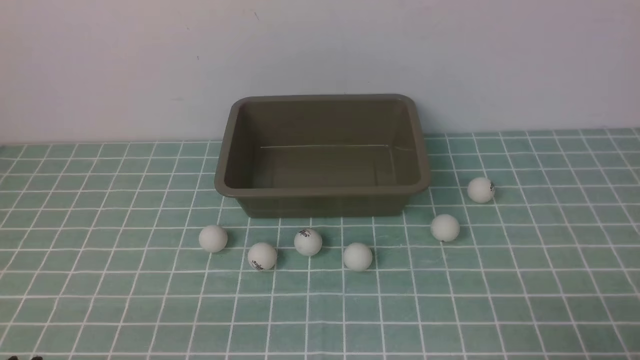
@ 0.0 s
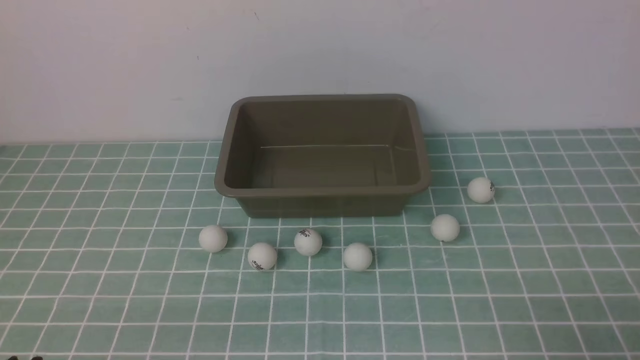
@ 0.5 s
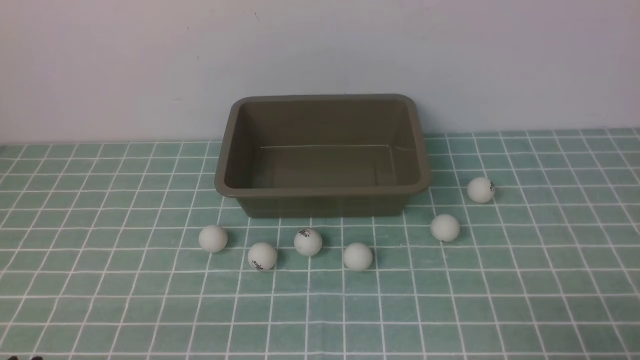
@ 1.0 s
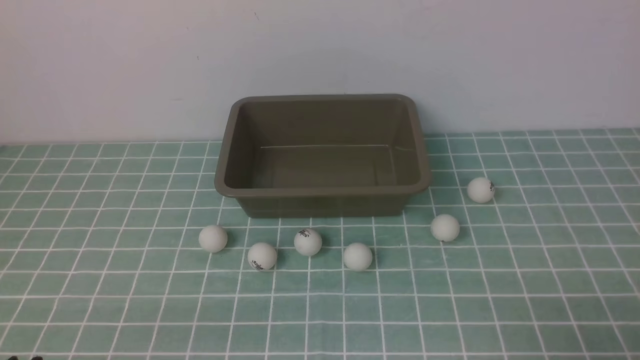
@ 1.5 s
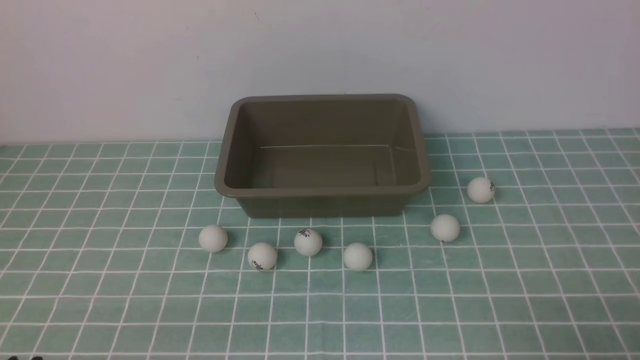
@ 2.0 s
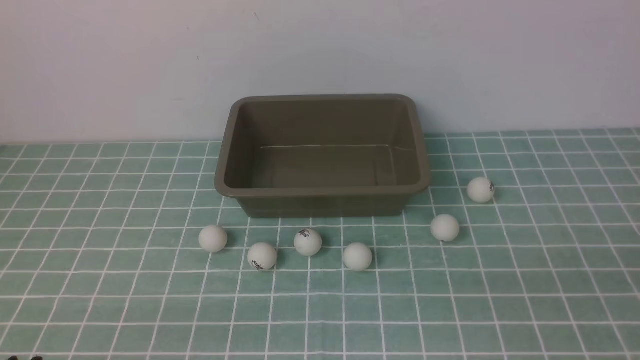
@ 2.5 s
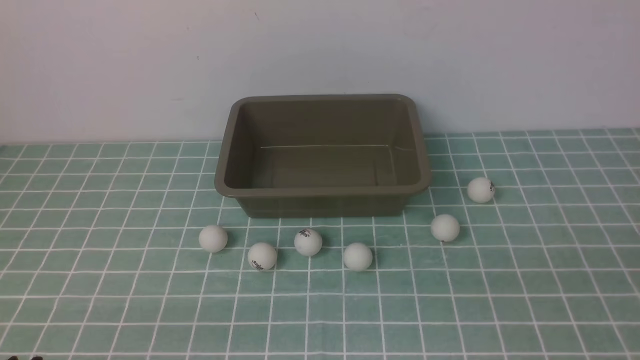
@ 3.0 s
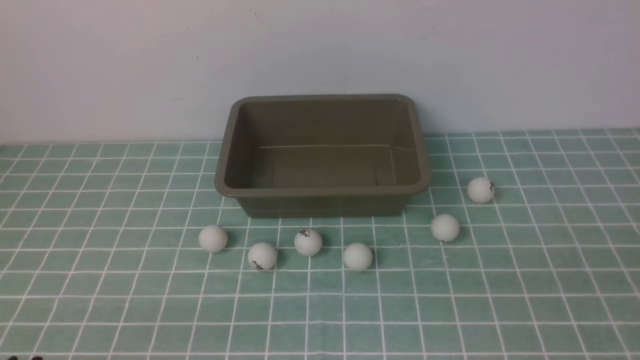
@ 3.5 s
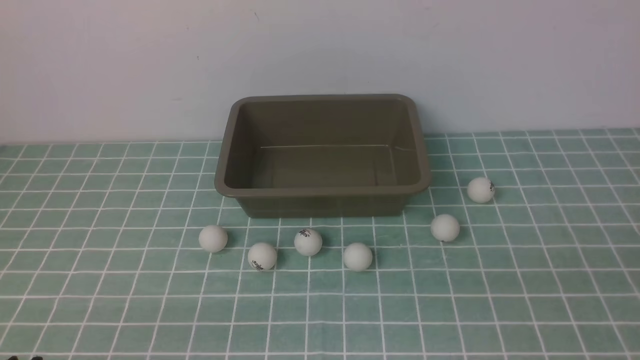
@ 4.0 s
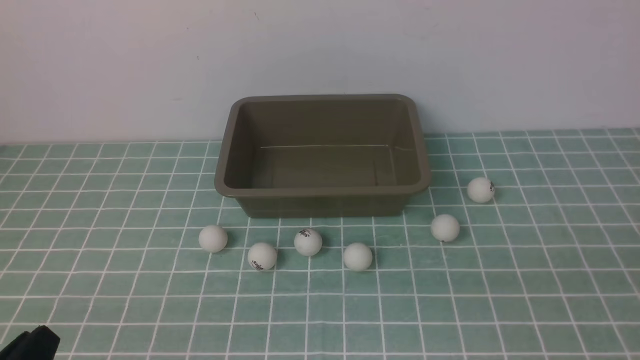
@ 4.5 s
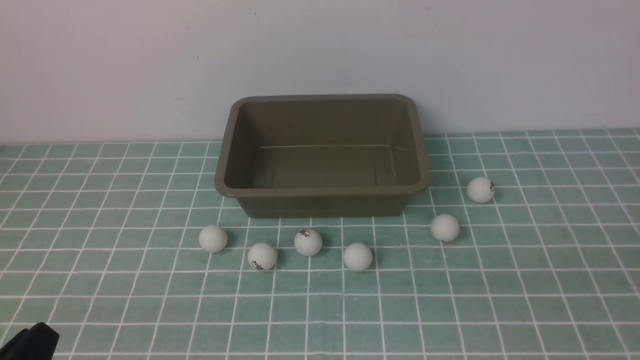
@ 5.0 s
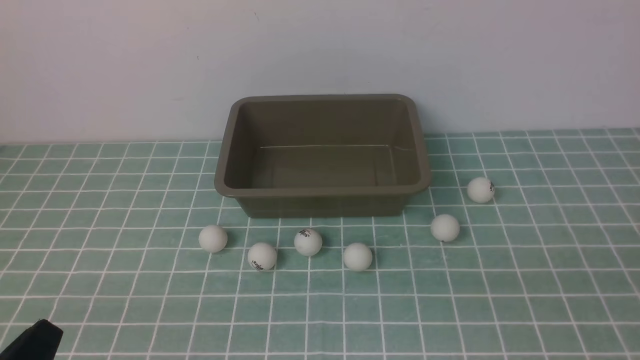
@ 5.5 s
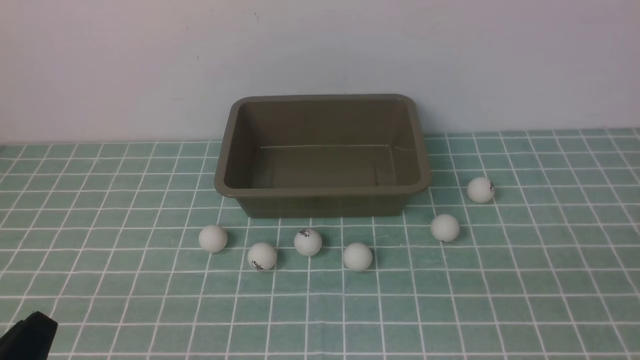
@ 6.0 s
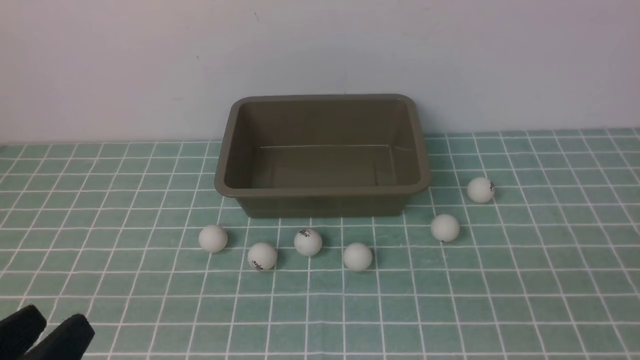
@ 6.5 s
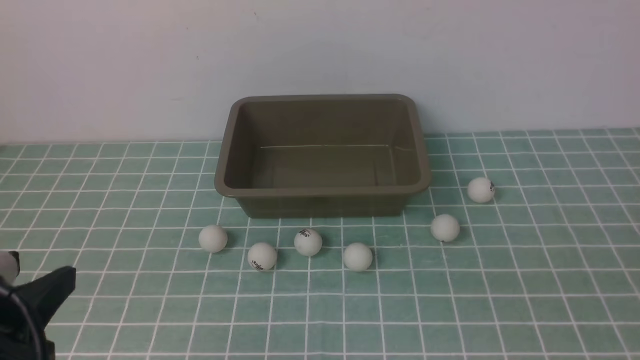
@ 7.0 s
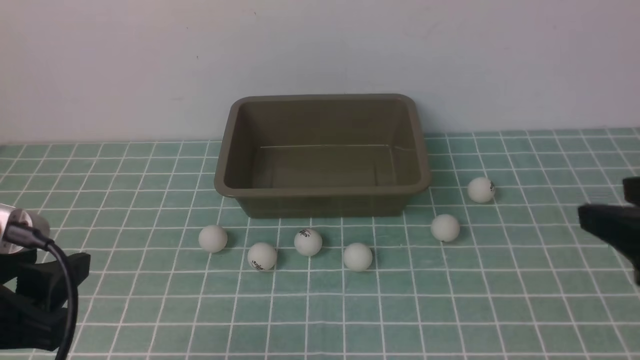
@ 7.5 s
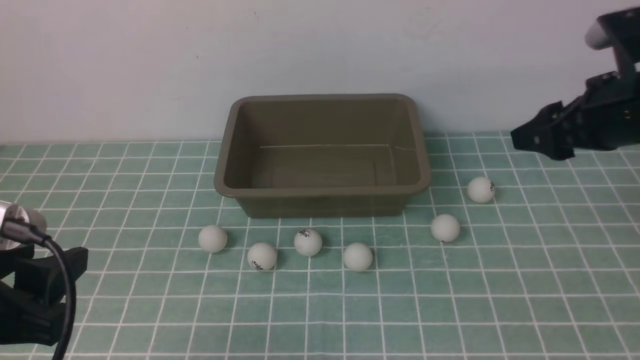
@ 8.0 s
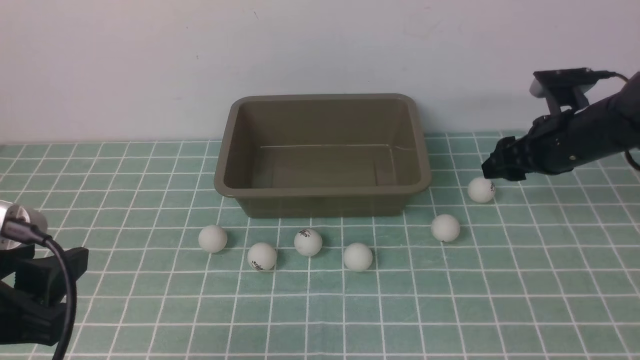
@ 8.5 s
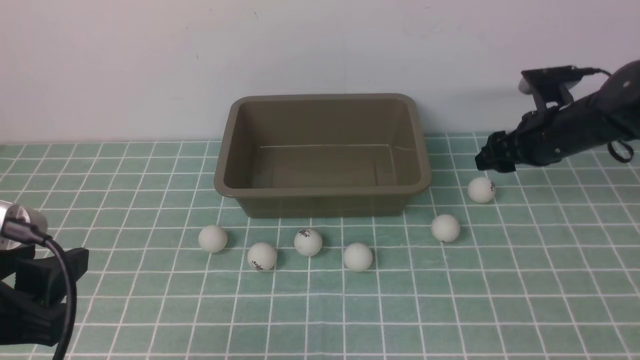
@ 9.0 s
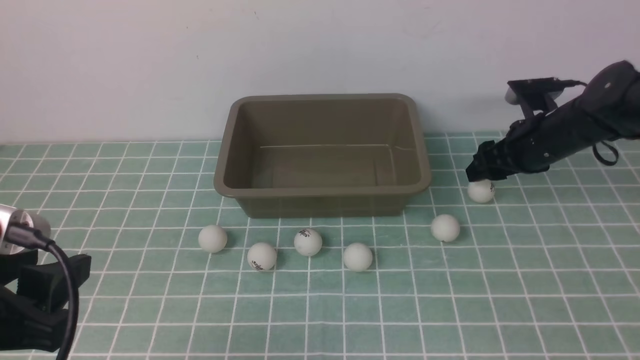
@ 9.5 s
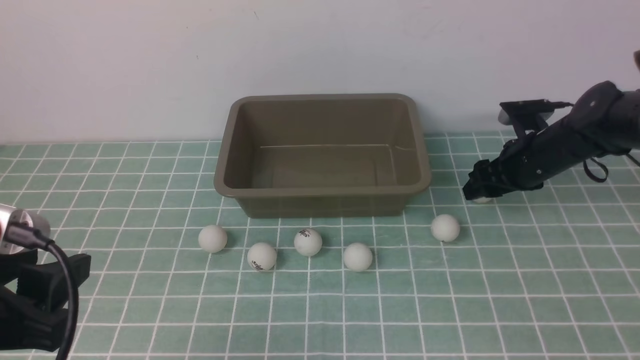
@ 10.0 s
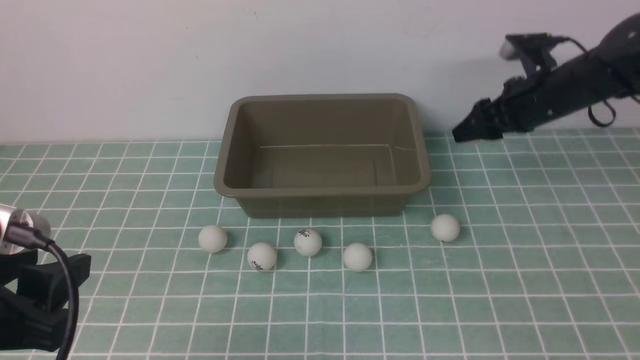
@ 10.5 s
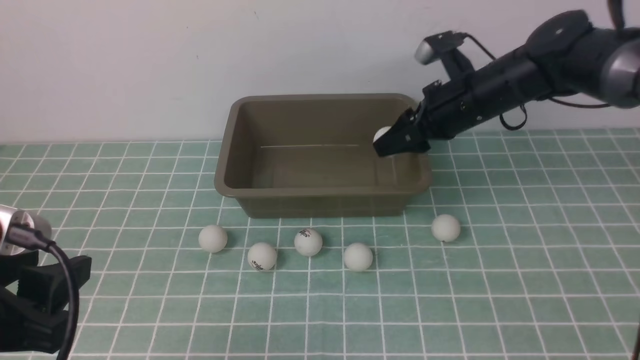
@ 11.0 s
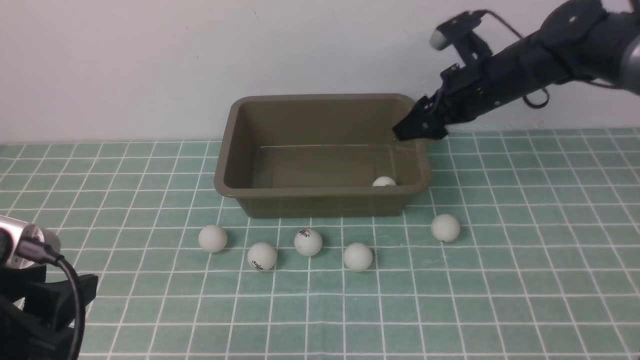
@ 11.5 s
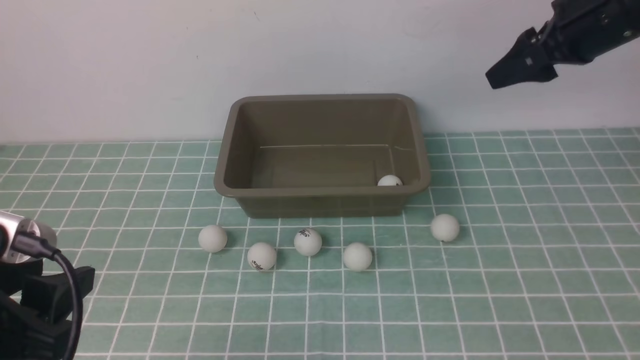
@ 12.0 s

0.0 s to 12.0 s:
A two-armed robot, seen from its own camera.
Step, 0.0 to 10.5 s: use the right arm to clamp the table tennis ball closest to it.
Step, 11.0 to 11.5 s: use the right arm to put the table tennis ball into the box.
6.0 to 8.0 s: The left gripper moves upward and forward, some 10 cm, and opens, while the right gripper travels forward by about 40 cm.
8.0 to 10.0 s: The right gripper is displaced forward by roughly 5 cm, reaches roughly 10 cm downward, then returns, and closes up.
10.0 to 12.0 s: The right gripper shifts some 15 cm backward and upward, and opens its fingers.

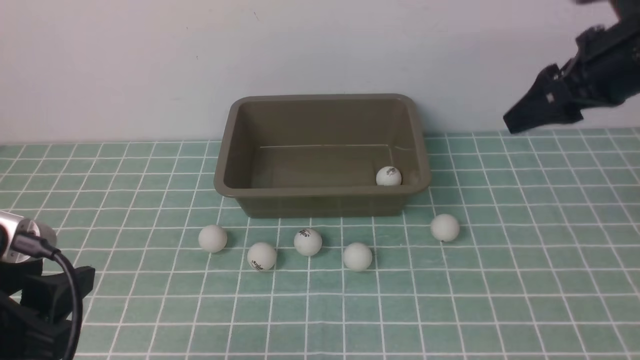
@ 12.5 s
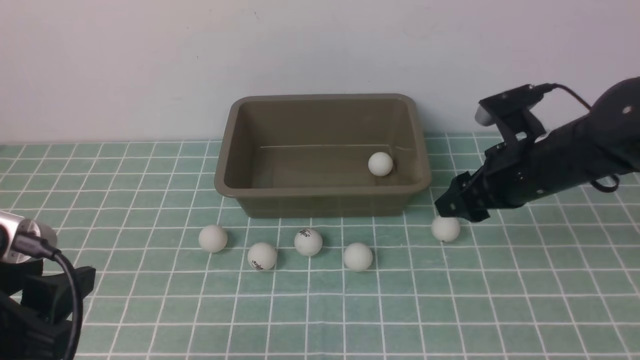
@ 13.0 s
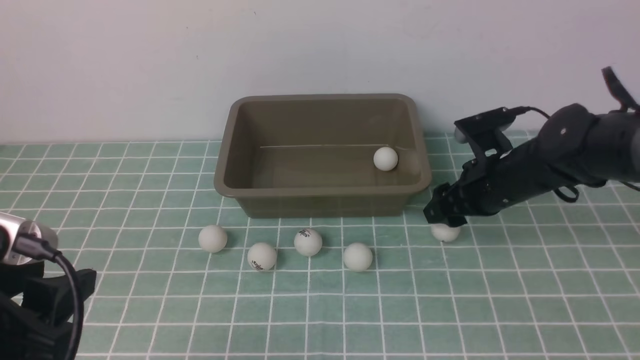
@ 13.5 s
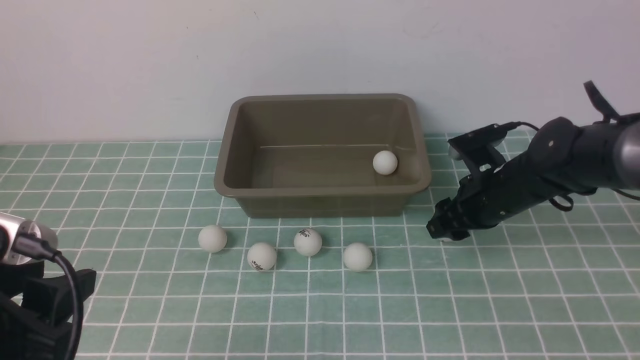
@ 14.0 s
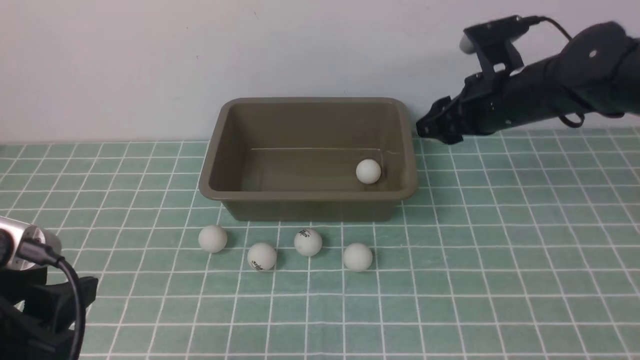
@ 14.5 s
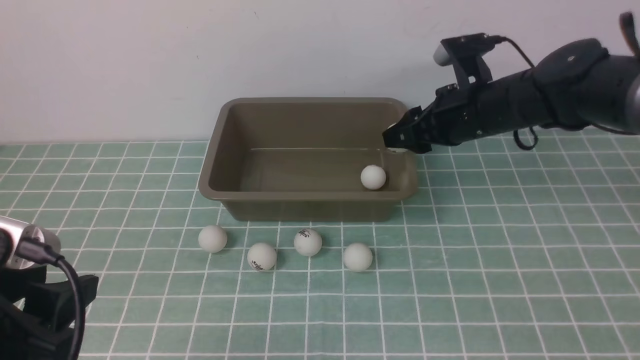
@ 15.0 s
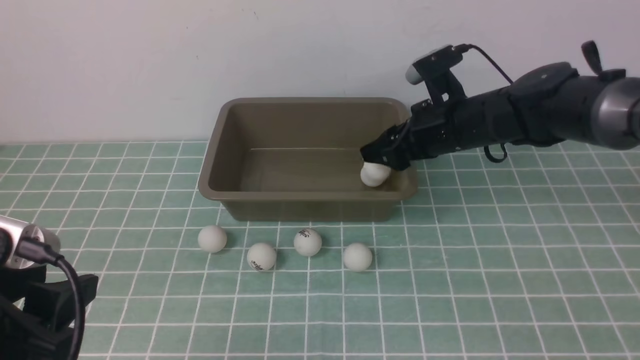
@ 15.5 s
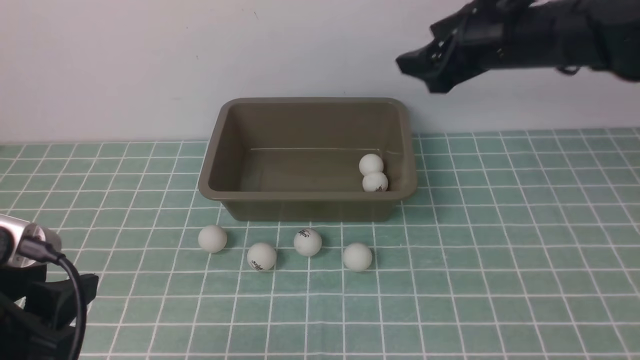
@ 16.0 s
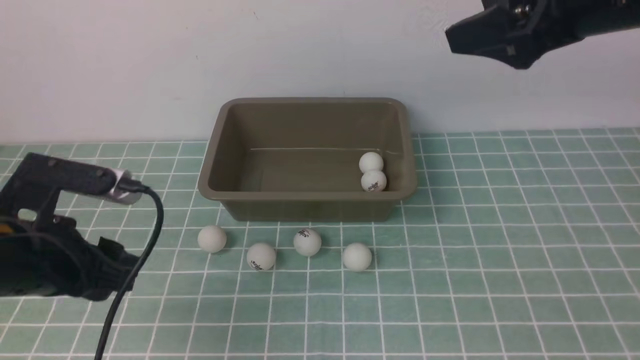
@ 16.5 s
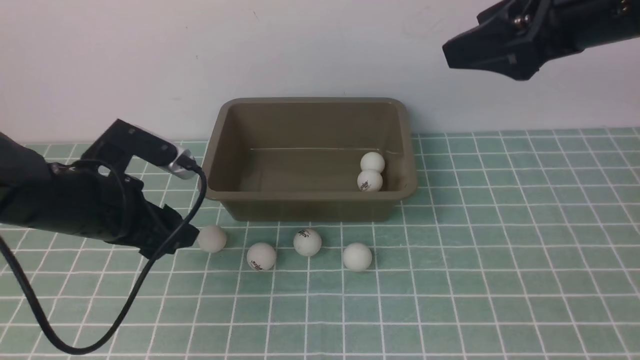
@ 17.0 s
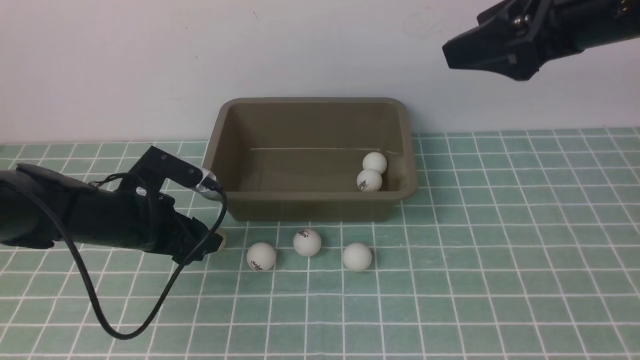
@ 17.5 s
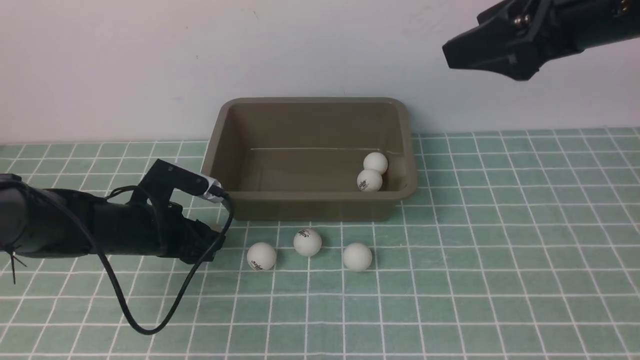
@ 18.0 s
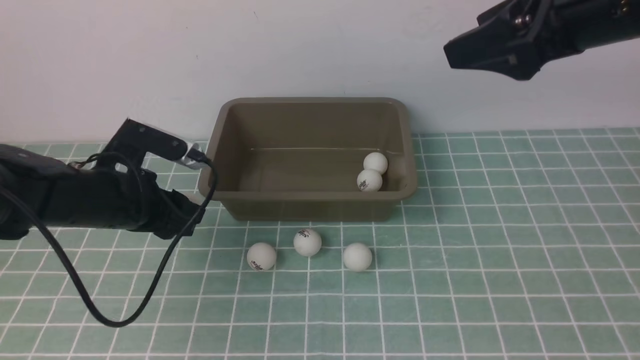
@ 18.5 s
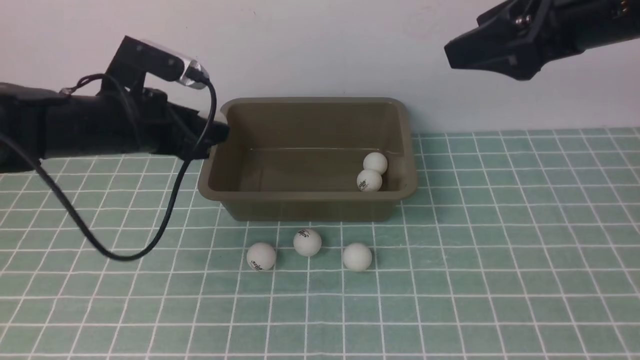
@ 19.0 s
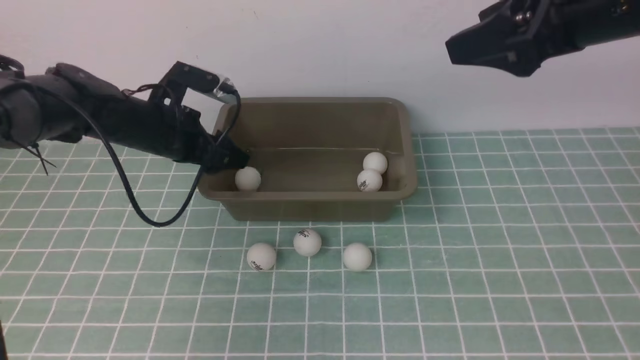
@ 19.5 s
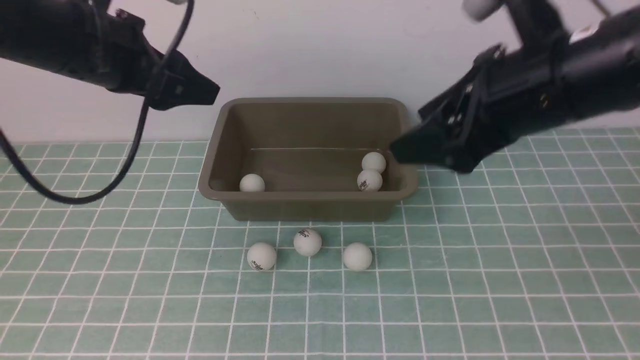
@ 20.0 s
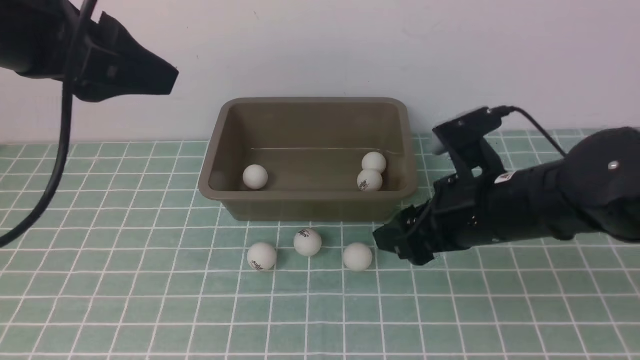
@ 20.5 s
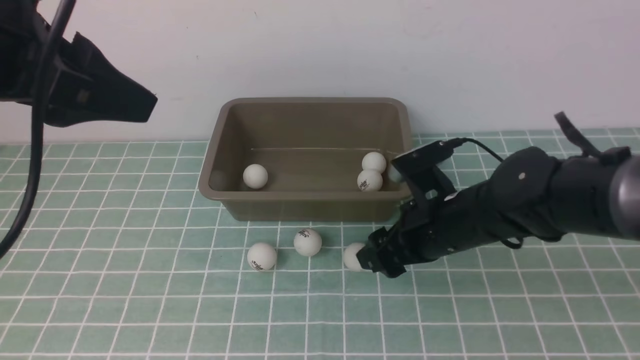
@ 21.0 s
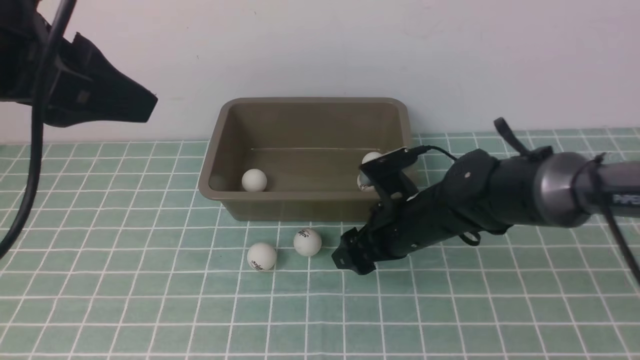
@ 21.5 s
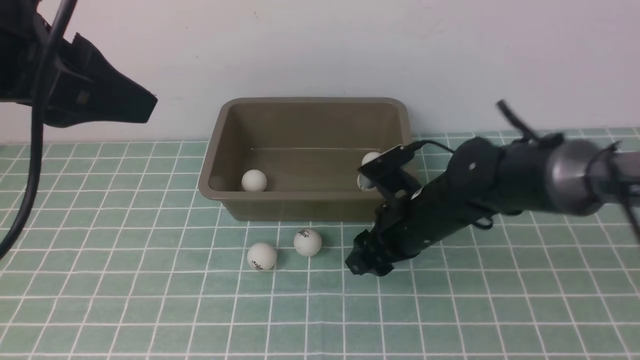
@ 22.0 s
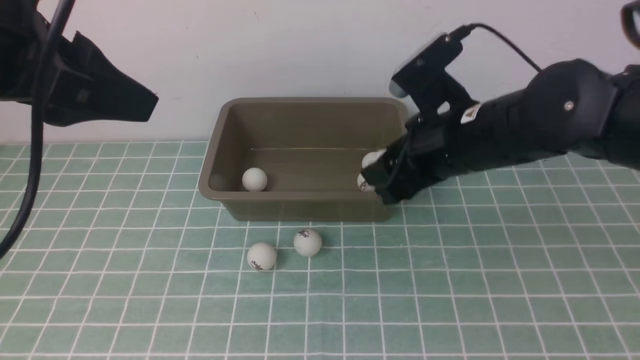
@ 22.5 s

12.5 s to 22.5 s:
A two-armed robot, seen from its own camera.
Step, 12.5 to 14.0 s: use the right arm to clamp the table tennis ball closest to it.
Step, 14.5 to 15.5 s: use the right arm to put the table tennis ball into the box.
Step, 16.0 to 18.0 s: use the left arm to clamp the table tennis ball closest to it.
Step, 18.5 to 19.5 s: use the left arm to put the table tennis ball into the box.
Step, 20.0 to 22.0 s: use the right arm to clamp the table tennis ball closest to it.
12.5 to 14.5 s: The right gripper travels forward by about 10 cm, moves approximately 10 cm downward and comes back, and closes.
14.5 to 16.5 s: The left gripper goes some 10 cm forward, while the right gripper moves upward and backward, roughly 20 cm, and opens its fingers.
16.5 to 18.5 s: The left gripper is displaced forward and downward by approximately 15 cm.
18.5 to 20.5 s: The right gripper is displaced downward by approximately 20 cm. Meanwhile the left gripper heads upward, covering roughly 25 cm, and opens.
20.5 to 22.5 s: The right gripper travels downward and back again, some 10 cm each way, and closes its fingers.
